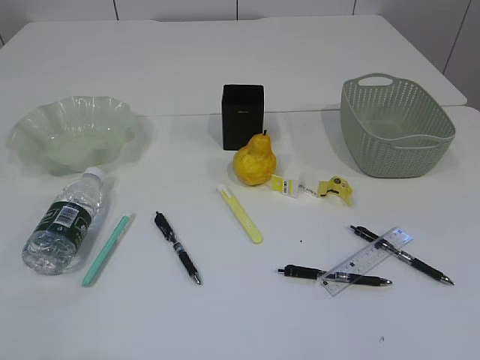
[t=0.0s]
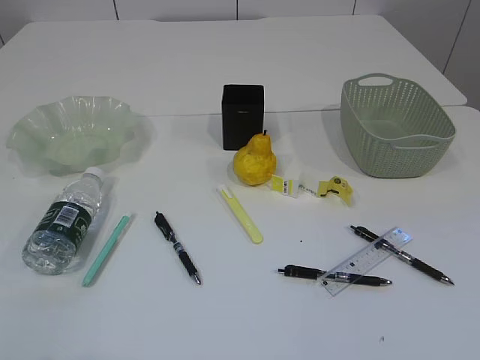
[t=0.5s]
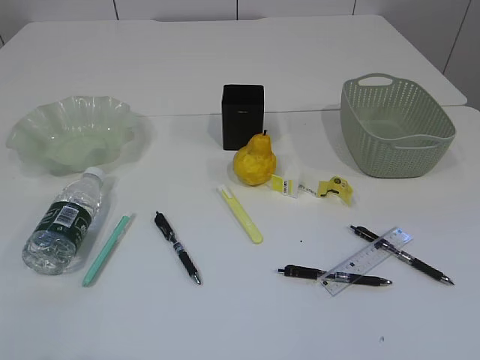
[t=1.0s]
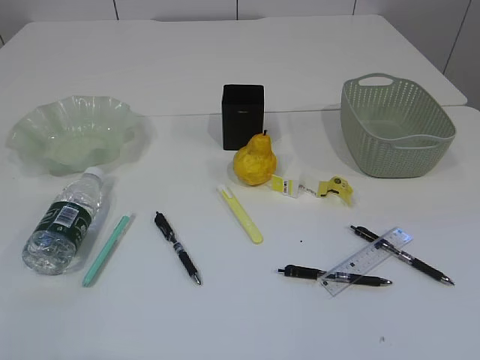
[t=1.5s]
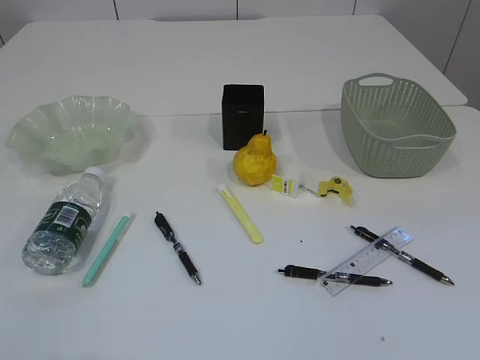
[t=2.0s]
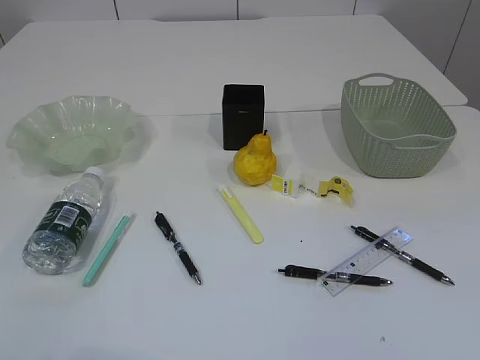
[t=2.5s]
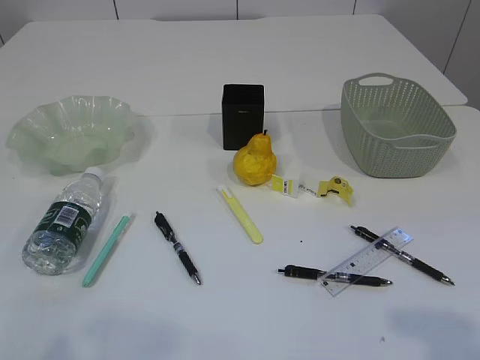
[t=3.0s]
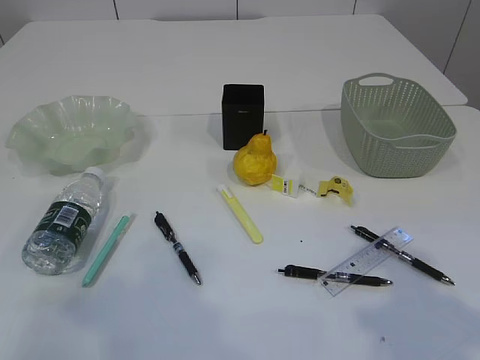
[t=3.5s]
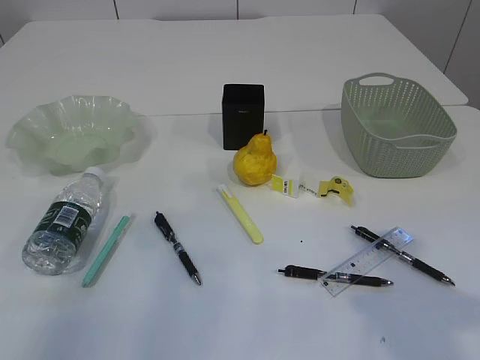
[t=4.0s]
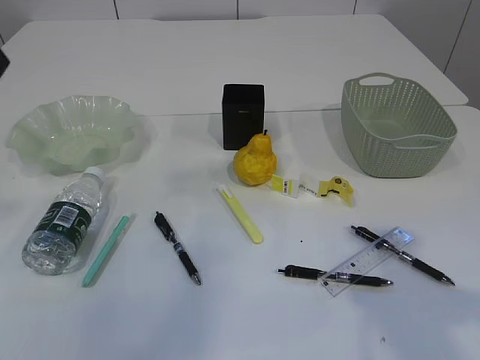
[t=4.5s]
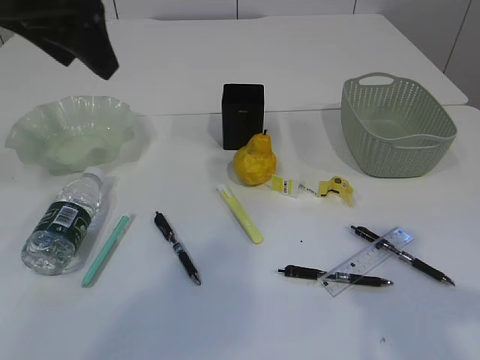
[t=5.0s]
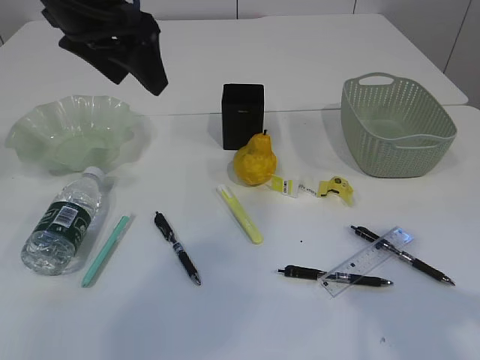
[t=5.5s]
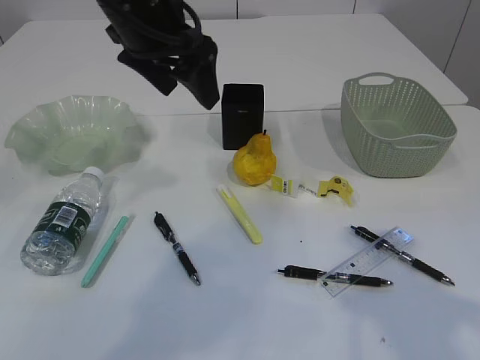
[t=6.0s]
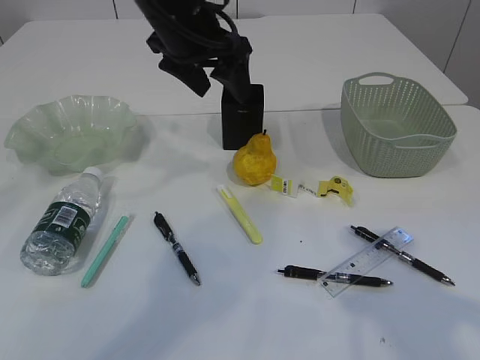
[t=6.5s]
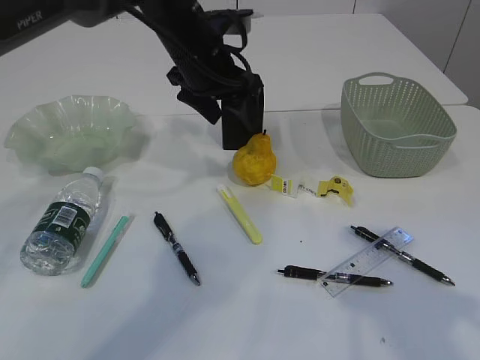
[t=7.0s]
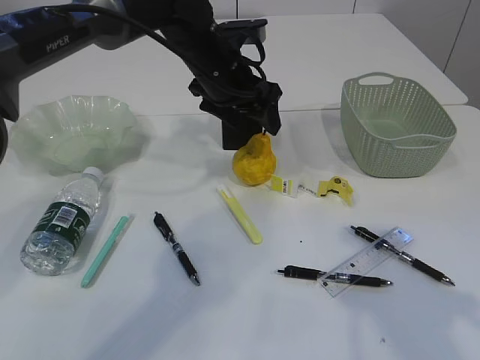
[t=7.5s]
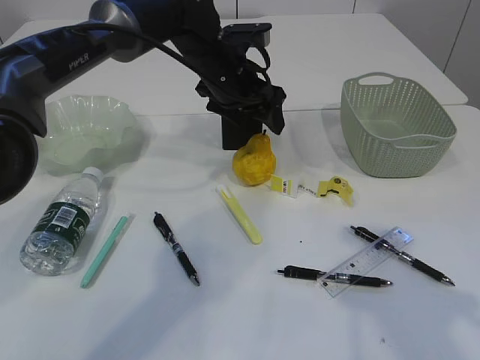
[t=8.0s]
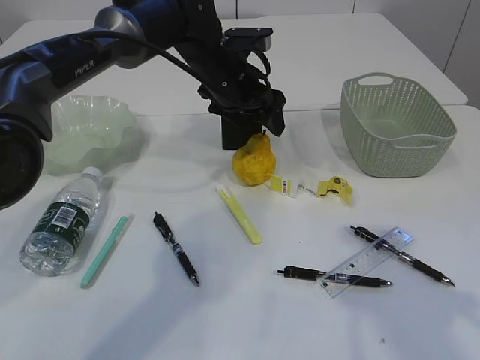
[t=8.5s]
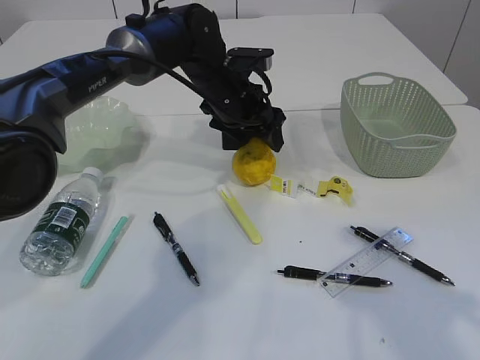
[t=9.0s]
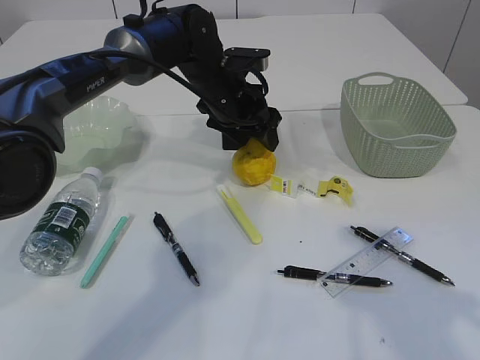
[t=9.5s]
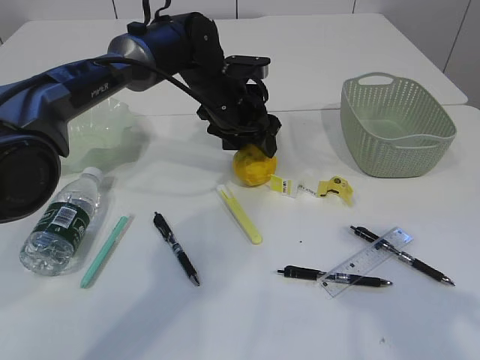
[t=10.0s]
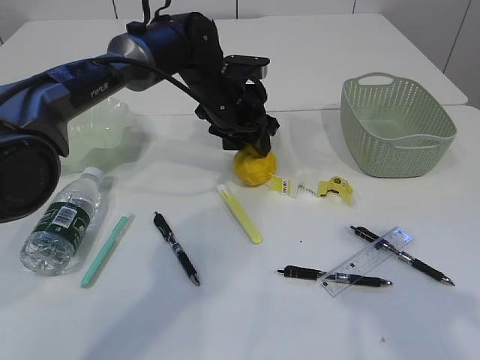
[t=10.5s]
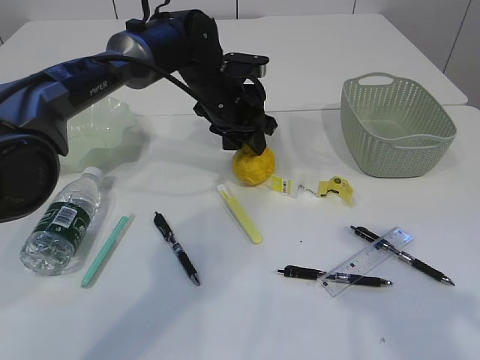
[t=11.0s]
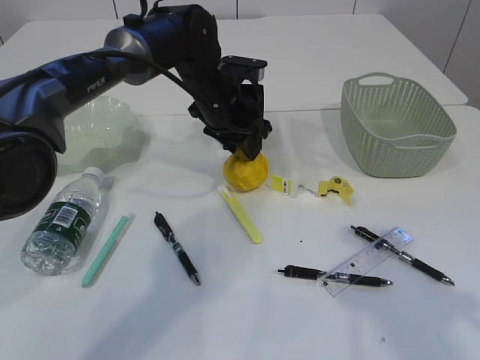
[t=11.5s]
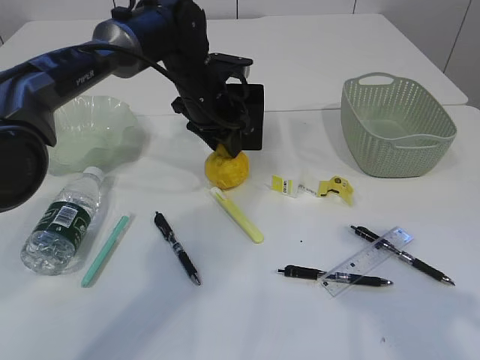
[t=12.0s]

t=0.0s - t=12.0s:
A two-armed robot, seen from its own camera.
t=2.0s - t=4.0s: The left gripper shifts some 20 cm forward and upward, while the right gripper is displaced forward by some 15 cm.
t=4.0s - t=6.0s: The left gripper shifts about 30 cm forward and to the right.
t=6.0s - t=8.0s: The left gripper travels downward, forward and to the right by roughly 15 cm.
t=8.0s - t=10.0s: The left gripper moves some 5 cm.
t=10.0s - t=12.0s: The left gripper closes up.

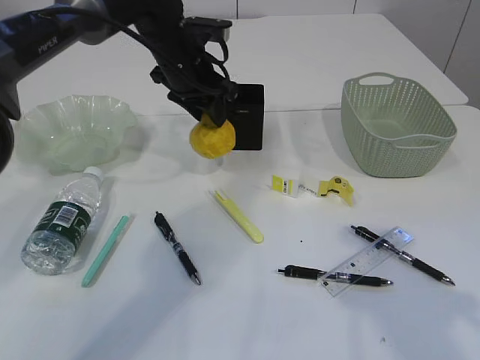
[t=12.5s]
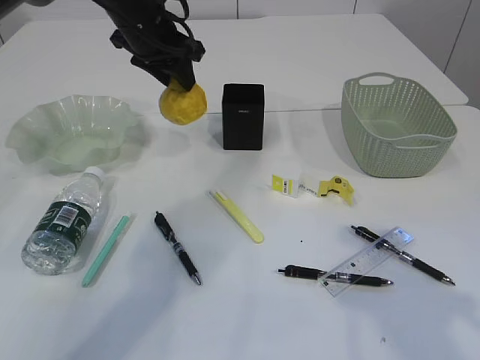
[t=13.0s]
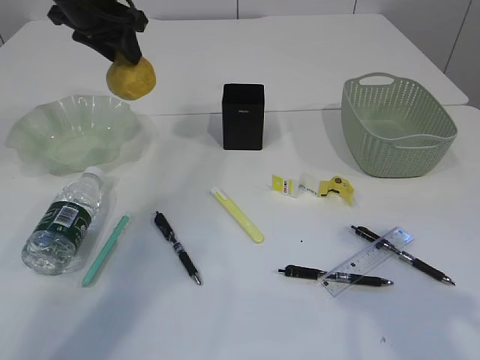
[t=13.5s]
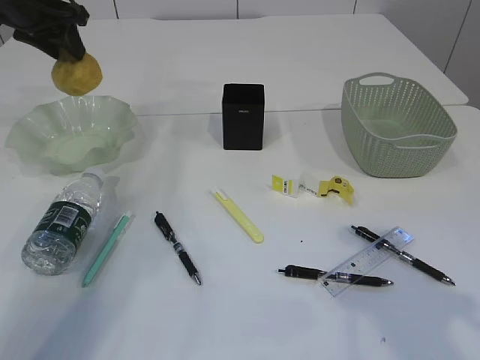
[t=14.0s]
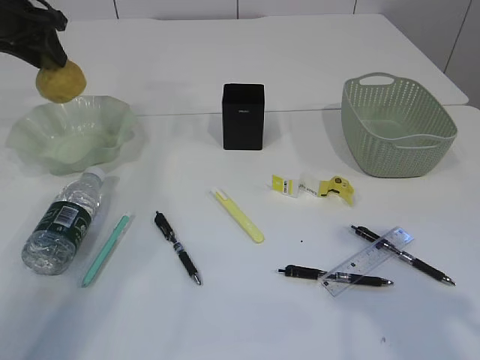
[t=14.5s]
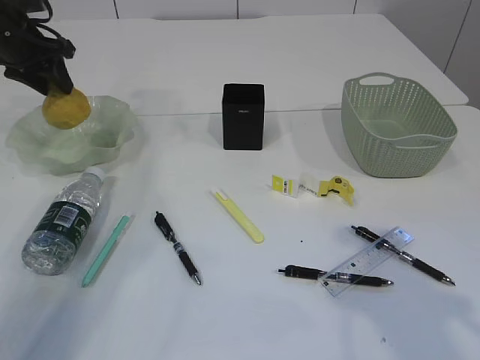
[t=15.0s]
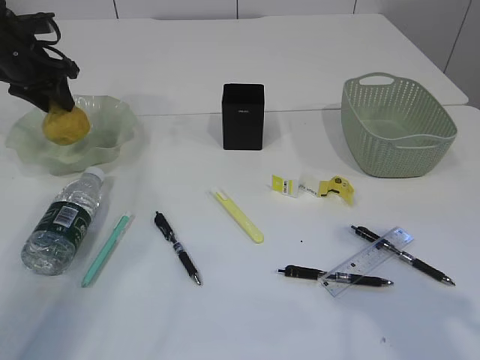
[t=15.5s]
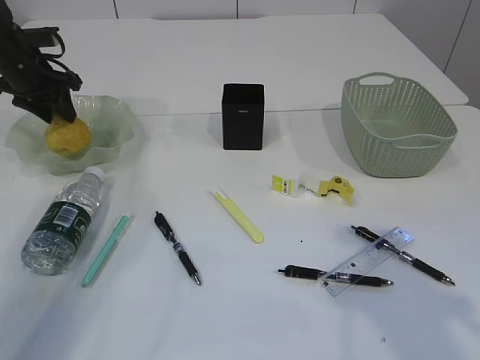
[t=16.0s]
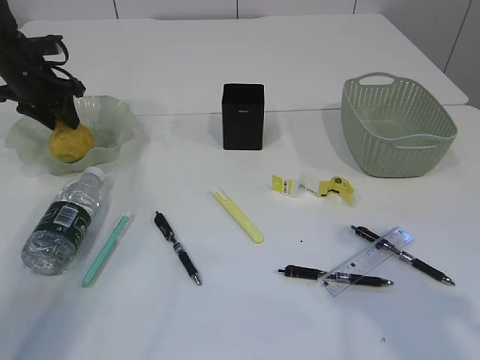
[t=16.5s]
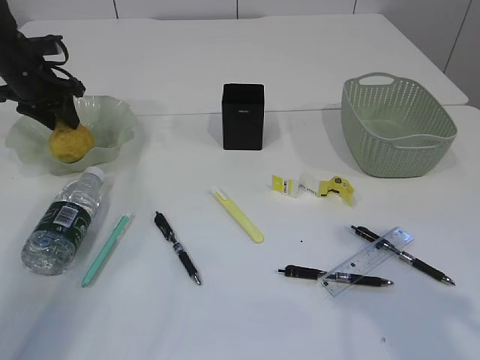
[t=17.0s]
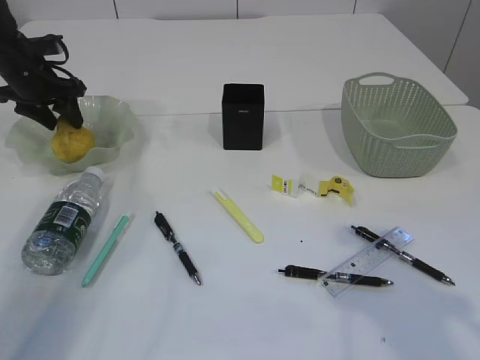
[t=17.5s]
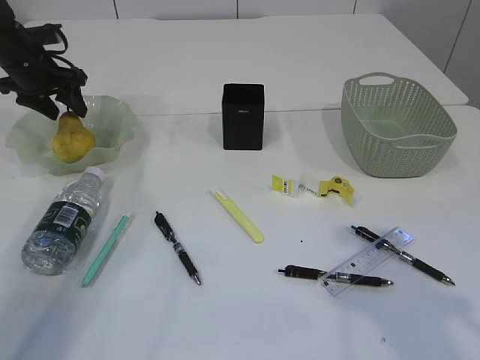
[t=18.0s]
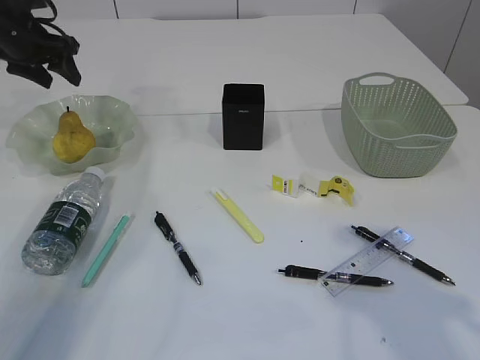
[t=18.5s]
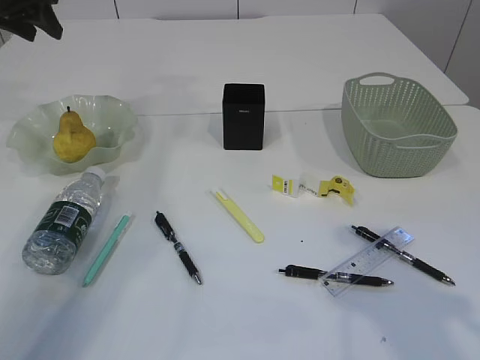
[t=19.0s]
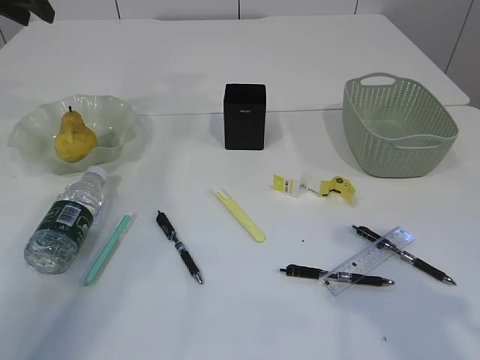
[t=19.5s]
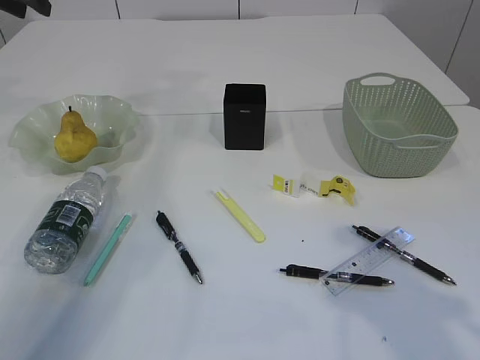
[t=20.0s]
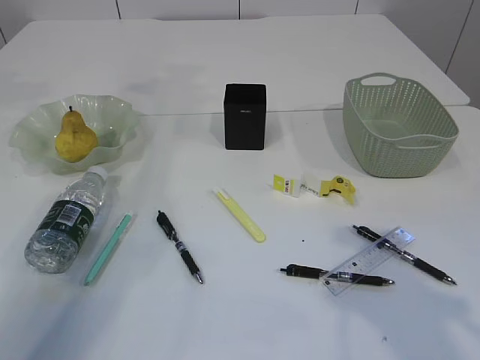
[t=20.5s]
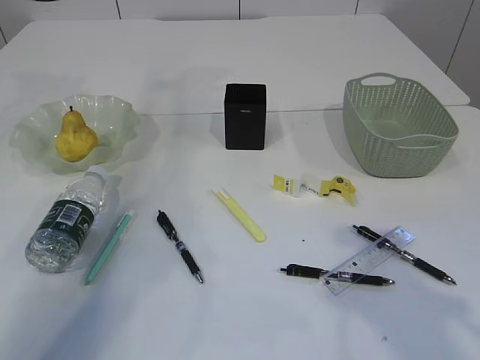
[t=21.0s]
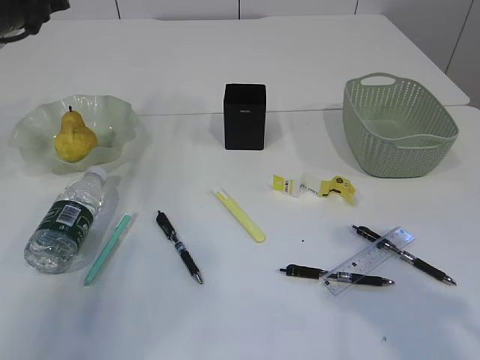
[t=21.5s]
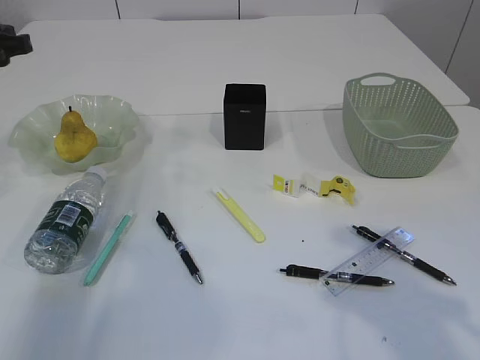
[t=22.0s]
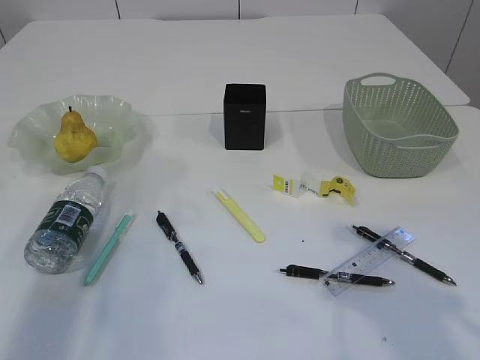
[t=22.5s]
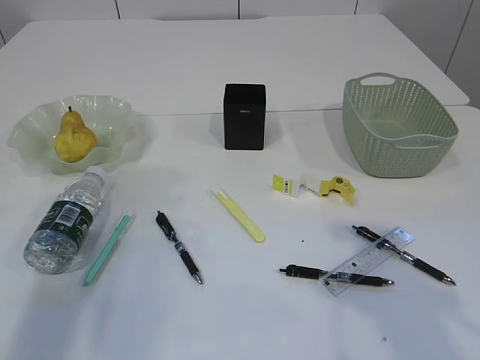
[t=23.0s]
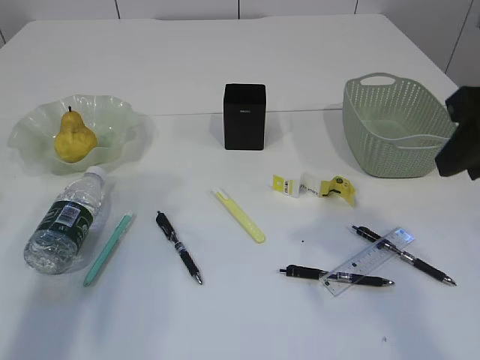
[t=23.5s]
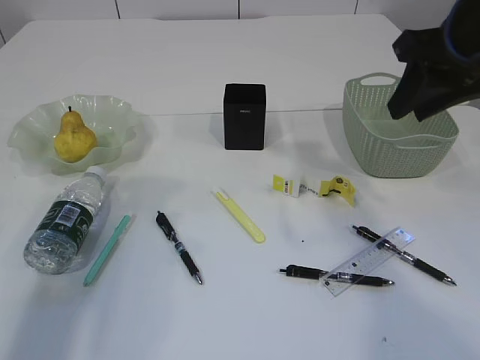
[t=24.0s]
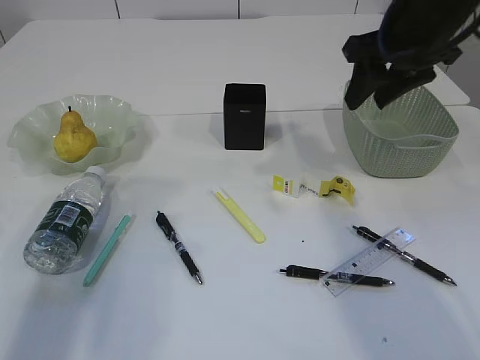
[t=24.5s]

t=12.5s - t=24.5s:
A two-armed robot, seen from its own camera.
Step, t=12.5s - t=18.0s: Place the pear in the plate.
t=12.5s - t=14.5s: The left gripper is displaced to the left by approximately 25 cm.
t=14.5s - t=16.5s: The left gripper moves downward, approximately 10 cm.
t=16.5s - t=18.5s: The left gripper is displaced upward by approximately 5 cm.
t=18.5s - t=20.5s: The left gripper travels upward by roughly 10 cm.
t=22.5s - t=24.5s: The right gripper is displaced forward by about 25 cm.

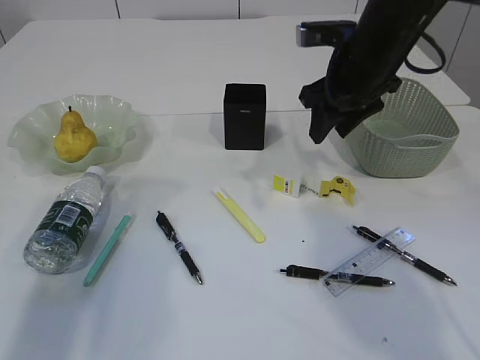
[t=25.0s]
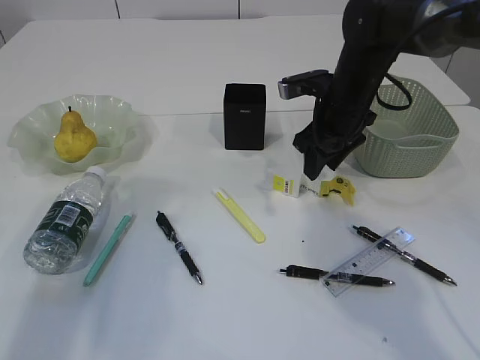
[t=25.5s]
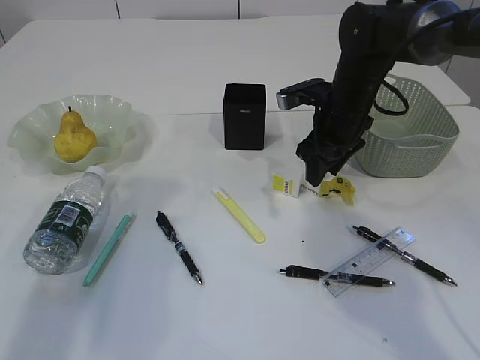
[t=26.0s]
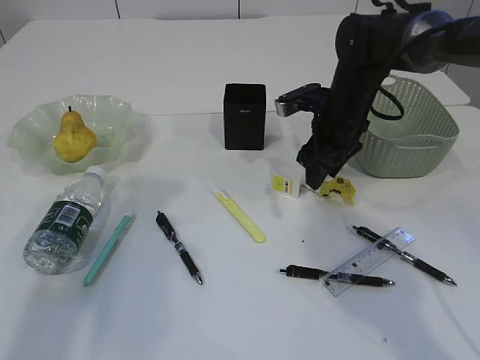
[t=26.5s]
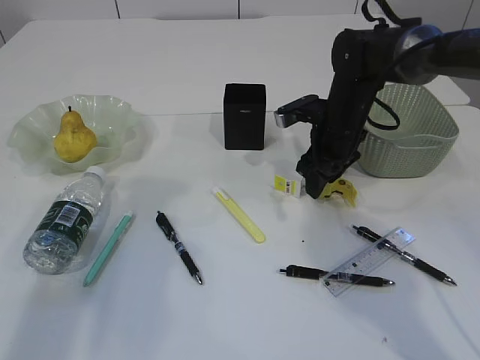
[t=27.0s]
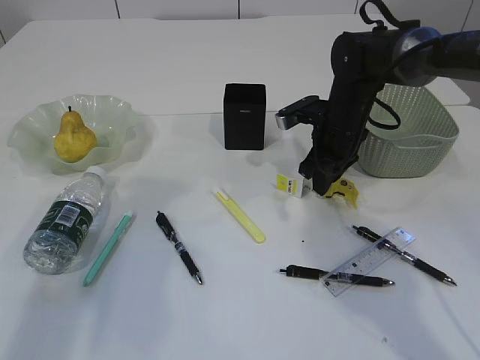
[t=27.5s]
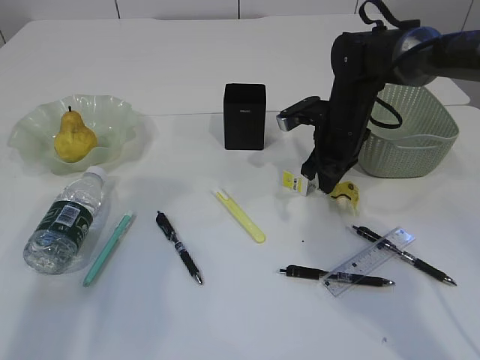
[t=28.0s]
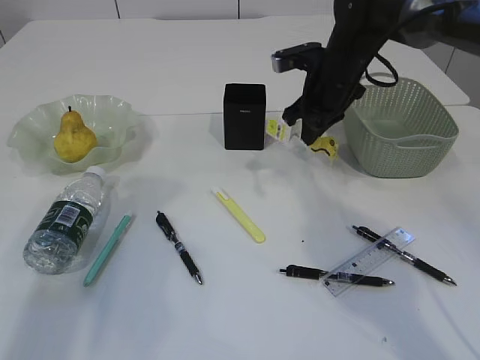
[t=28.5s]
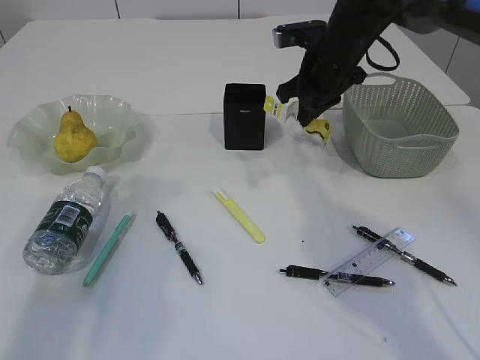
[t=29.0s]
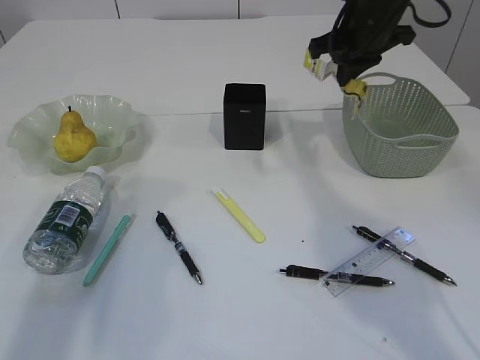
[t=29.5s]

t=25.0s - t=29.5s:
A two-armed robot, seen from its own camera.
Step, t=25.0s - t=28.0s: Pick up the plastic.
t=25.0s - t=27.0s: The right gripper shifts about 10 cm downward.
t=27.0s - t=29.5s: The right gripper goes about 15 cm upward, and closes.
